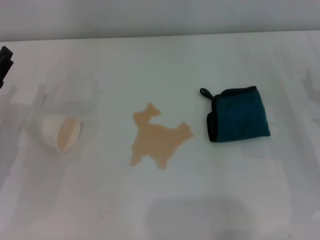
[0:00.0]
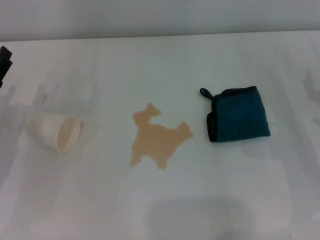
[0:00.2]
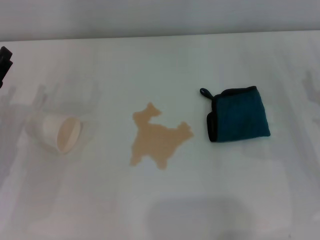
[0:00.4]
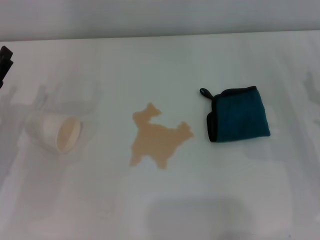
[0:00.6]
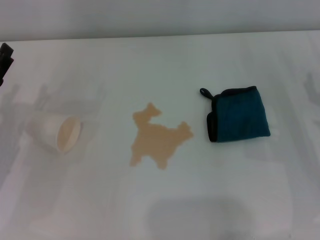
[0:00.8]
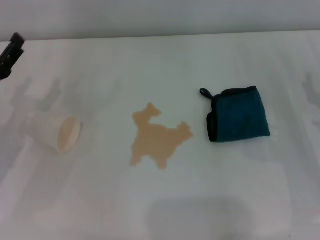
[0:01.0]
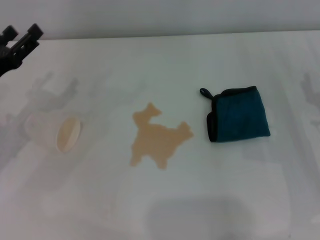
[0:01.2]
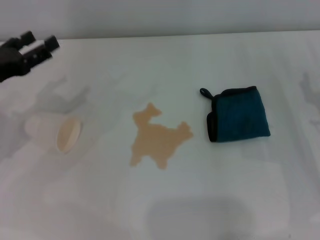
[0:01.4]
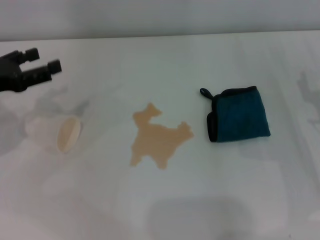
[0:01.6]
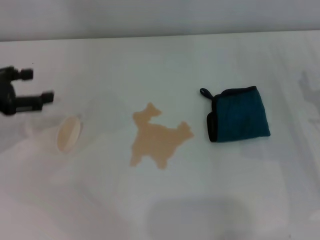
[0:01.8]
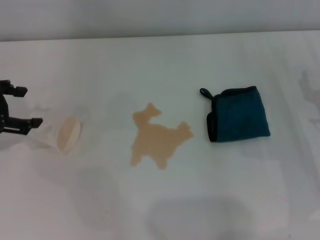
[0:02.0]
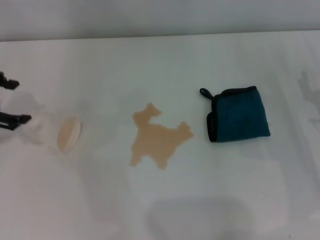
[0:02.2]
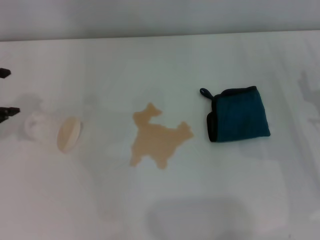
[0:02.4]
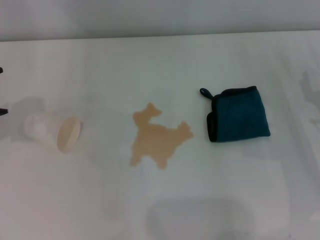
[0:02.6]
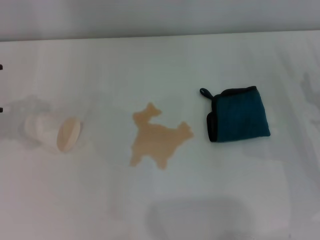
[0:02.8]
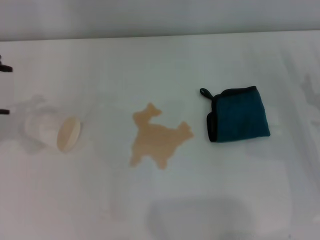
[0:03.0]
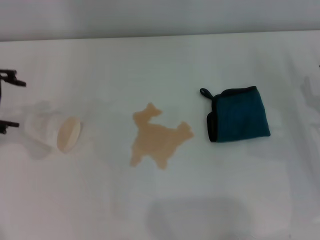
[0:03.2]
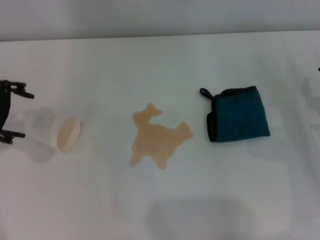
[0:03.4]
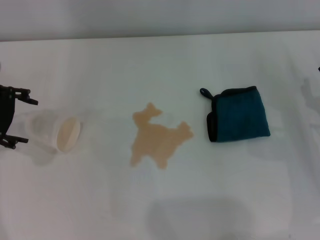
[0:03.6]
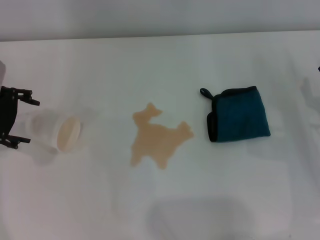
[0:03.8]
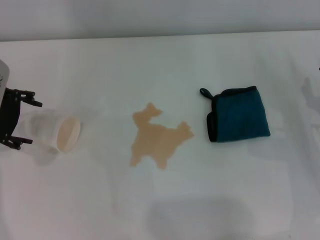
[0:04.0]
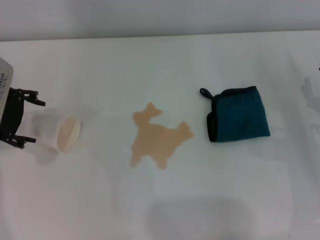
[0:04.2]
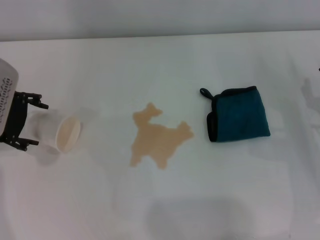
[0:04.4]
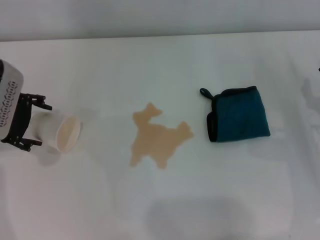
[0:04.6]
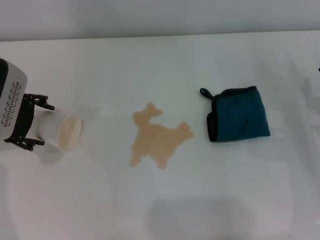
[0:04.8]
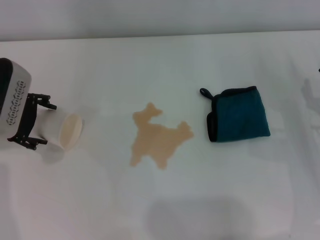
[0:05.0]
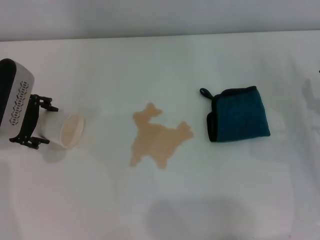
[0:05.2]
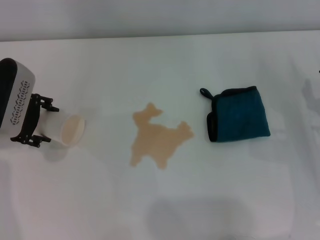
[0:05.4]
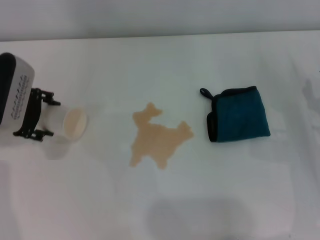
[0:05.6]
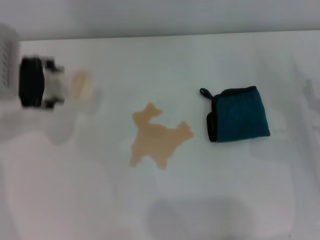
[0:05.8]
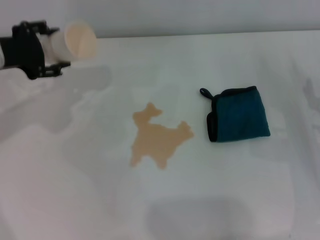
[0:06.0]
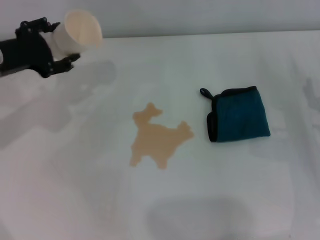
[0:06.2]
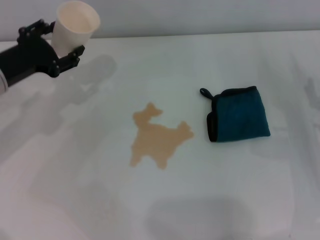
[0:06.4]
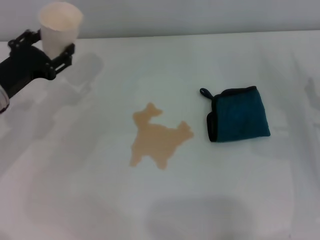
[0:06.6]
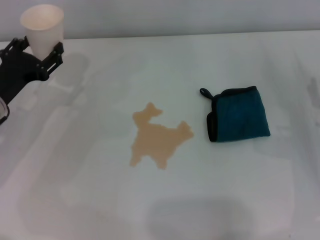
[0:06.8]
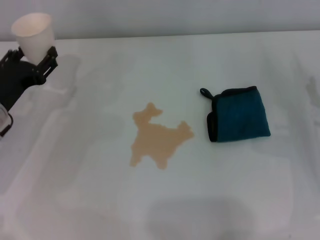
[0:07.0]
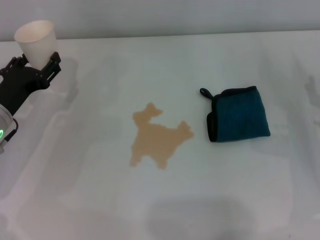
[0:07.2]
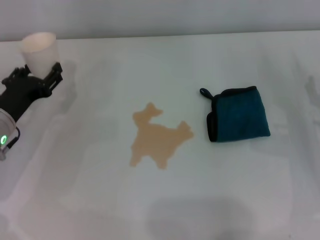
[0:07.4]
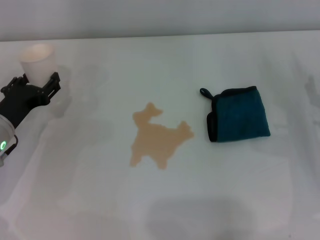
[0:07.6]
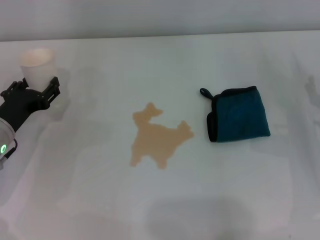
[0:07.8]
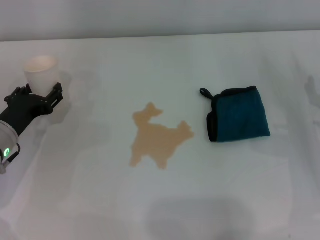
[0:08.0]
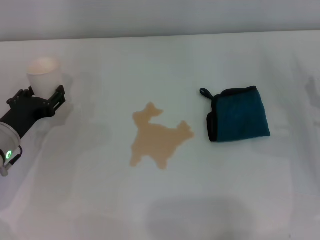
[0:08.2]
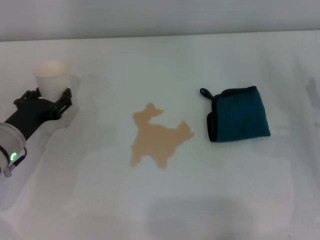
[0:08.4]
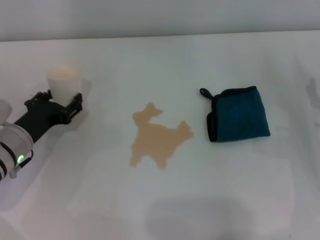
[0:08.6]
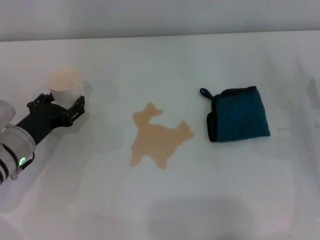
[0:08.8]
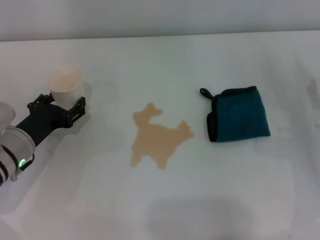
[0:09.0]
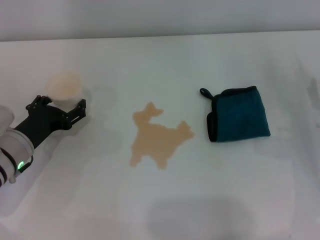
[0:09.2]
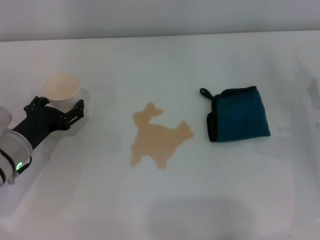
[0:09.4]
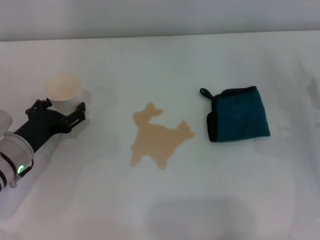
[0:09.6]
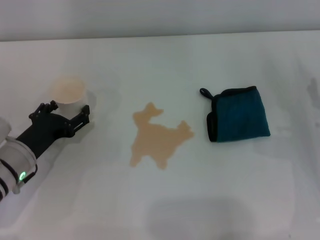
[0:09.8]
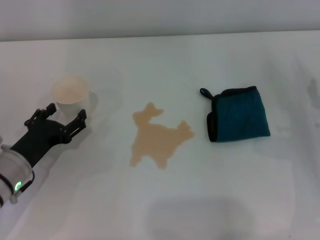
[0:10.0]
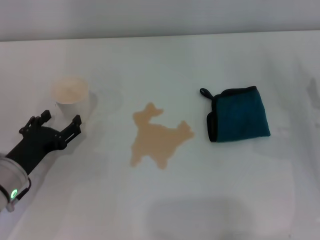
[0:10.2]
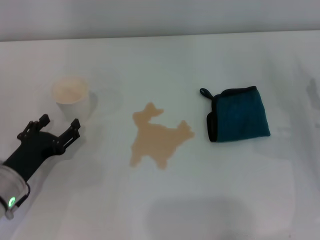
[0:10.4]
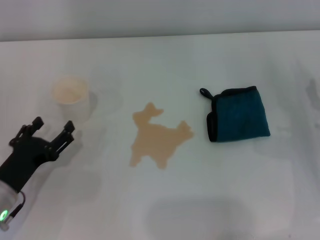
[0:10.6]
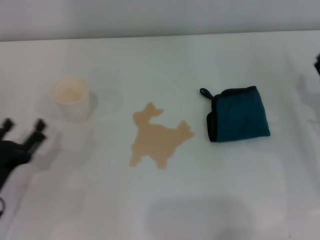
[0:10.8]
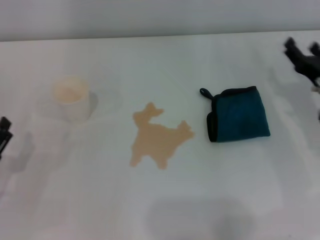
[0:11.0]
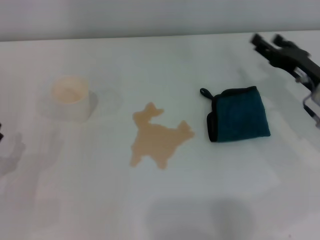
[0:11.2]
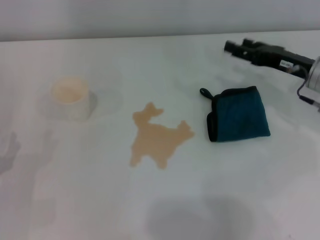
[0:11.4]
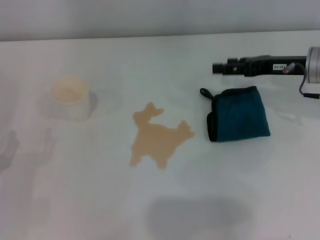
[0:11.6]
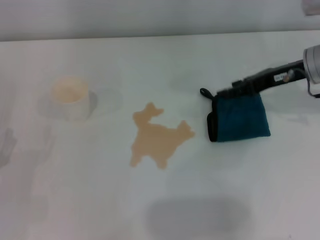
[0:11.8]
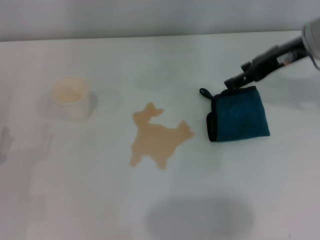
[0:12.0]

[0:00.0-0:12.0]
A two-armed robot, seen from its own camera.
Step, 0:00.0 to 0:05.2: Grasp the paper cup with the left gripper.
Step, 0:05.6 to 0:09.8: Stand the paper cup upright with the left gripper.
0:00.0 to 0:01.6: The left gripper goes roughly 10 cm upward.
0:01.6 to 0:03.0: The left gripper shifts approximately 10 cm upward.
0:03.0 to 0:04.4: The left gripper heads downward, covering about 10 cm.
0:04.4 to 0:06.0: The left gripper closes up.
0:06.0 to 0:07.6: The left gripper goes approximately 15 cm downward and backward.
0:07.6 to 0:09.0: The grippers make only small movements.
0:09.0 to 0:10.4: The left gripper moves backward, some 5 cm, and opens its fingers.
0:10.4 to 0:12.0: The right gripper moves upward, forward and to the left, approximately 25 cm; the left gripper shifts approximately 5 cm to the left.

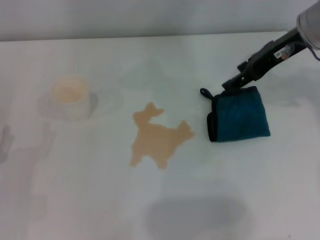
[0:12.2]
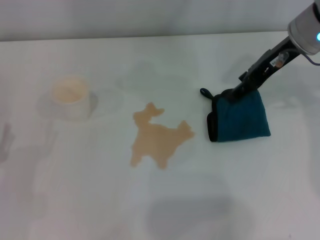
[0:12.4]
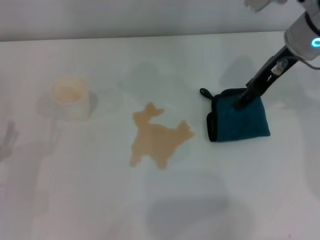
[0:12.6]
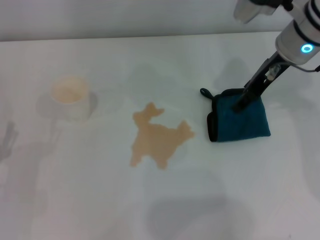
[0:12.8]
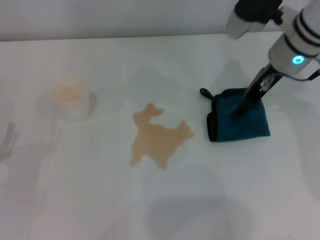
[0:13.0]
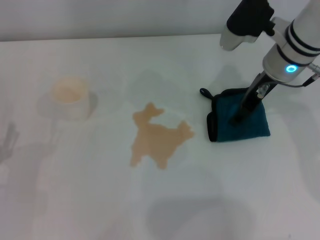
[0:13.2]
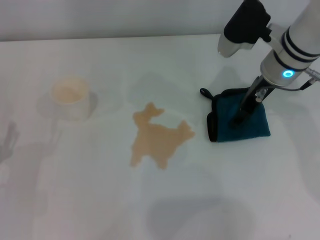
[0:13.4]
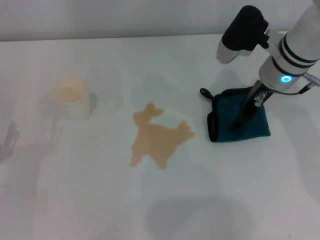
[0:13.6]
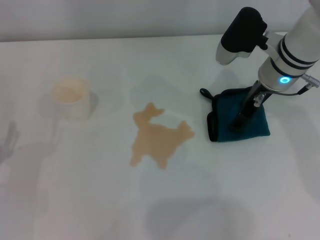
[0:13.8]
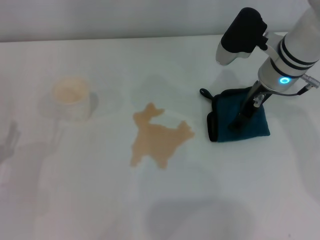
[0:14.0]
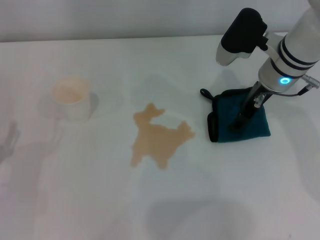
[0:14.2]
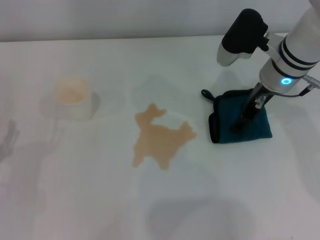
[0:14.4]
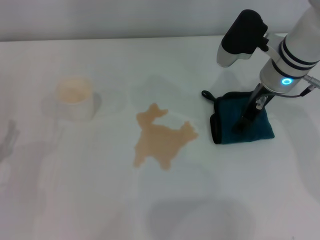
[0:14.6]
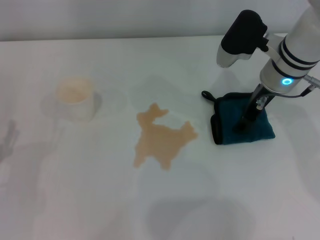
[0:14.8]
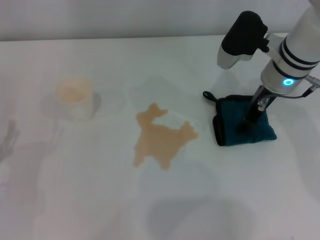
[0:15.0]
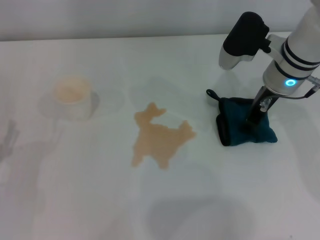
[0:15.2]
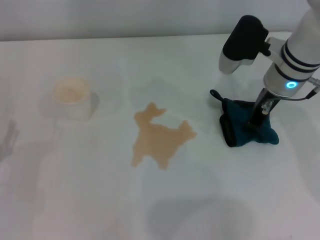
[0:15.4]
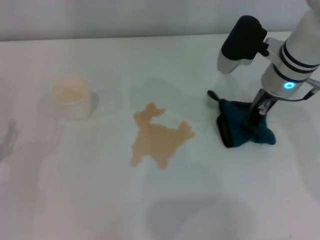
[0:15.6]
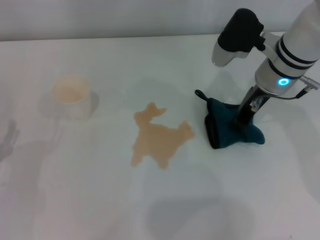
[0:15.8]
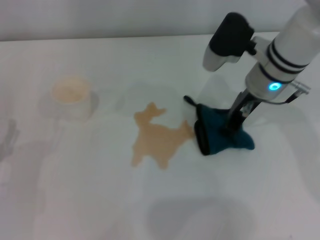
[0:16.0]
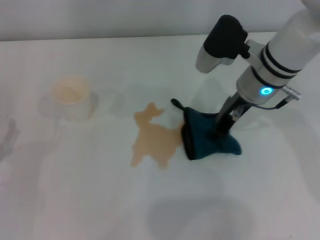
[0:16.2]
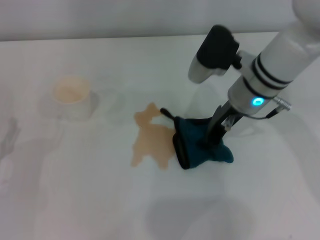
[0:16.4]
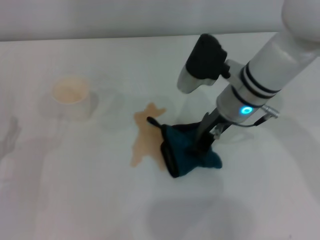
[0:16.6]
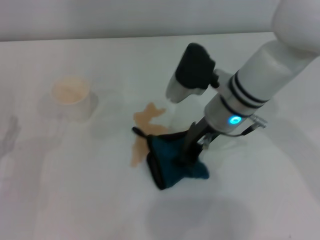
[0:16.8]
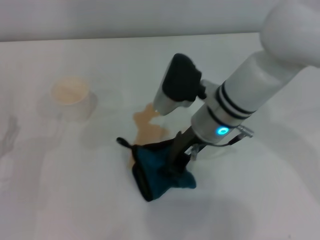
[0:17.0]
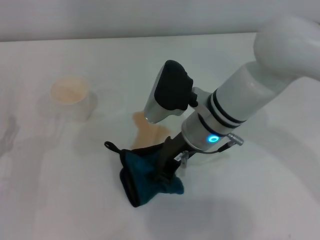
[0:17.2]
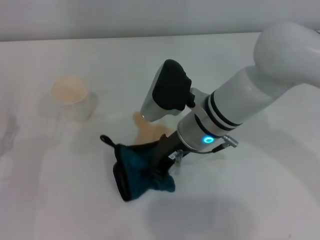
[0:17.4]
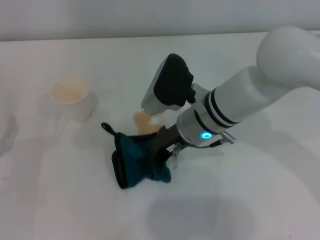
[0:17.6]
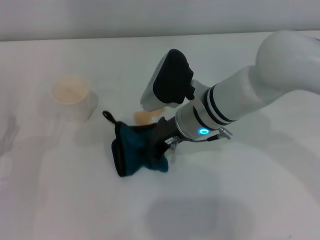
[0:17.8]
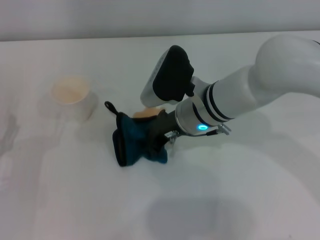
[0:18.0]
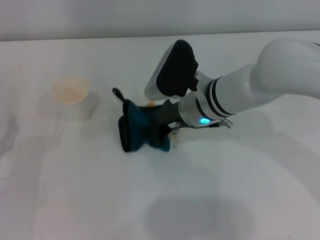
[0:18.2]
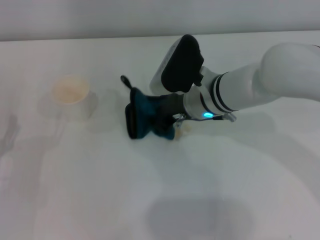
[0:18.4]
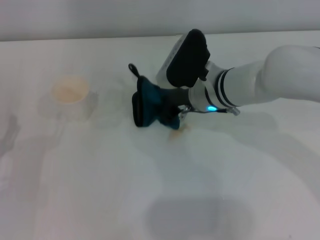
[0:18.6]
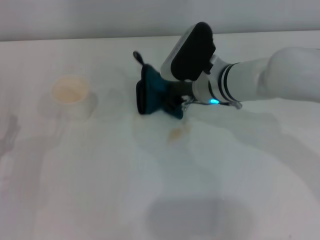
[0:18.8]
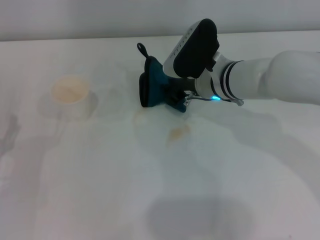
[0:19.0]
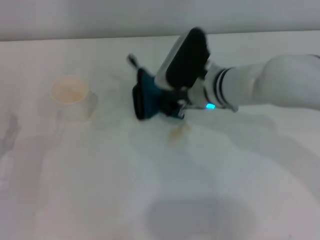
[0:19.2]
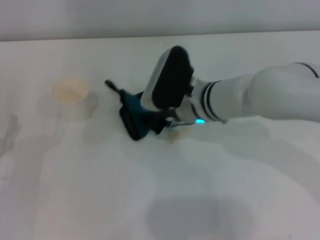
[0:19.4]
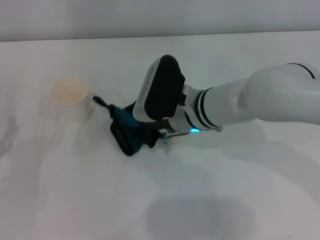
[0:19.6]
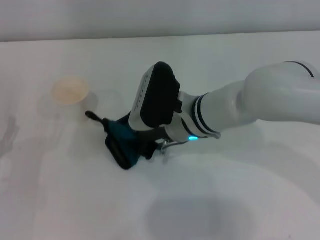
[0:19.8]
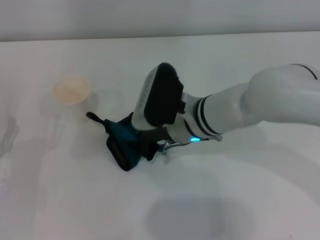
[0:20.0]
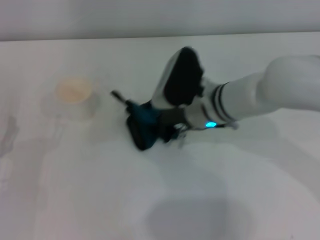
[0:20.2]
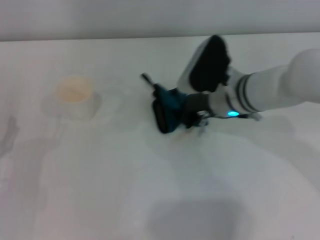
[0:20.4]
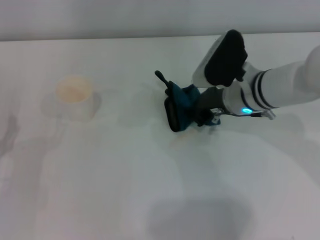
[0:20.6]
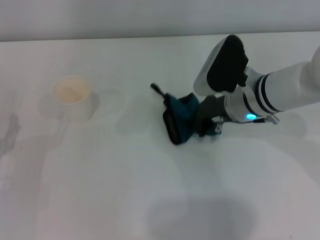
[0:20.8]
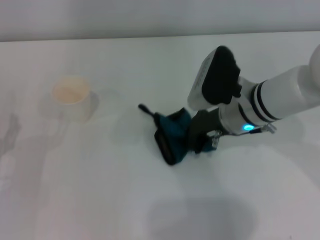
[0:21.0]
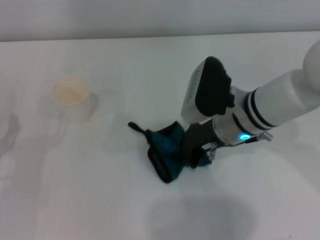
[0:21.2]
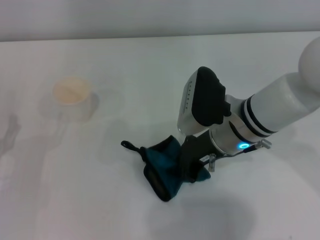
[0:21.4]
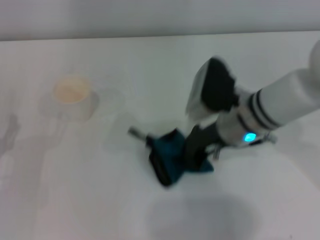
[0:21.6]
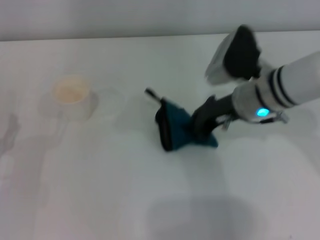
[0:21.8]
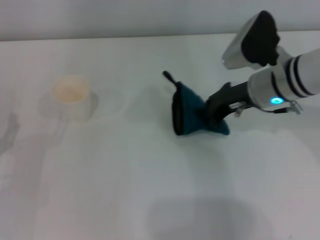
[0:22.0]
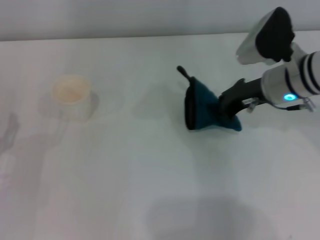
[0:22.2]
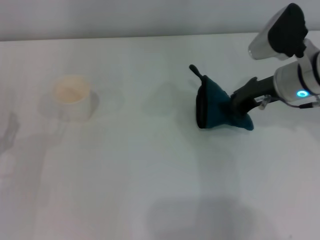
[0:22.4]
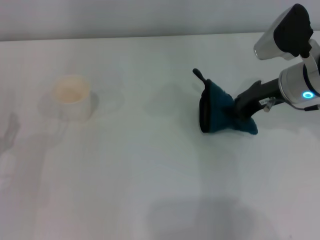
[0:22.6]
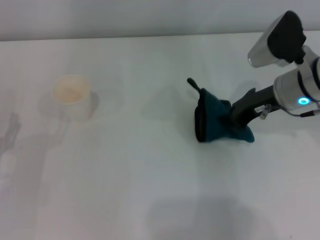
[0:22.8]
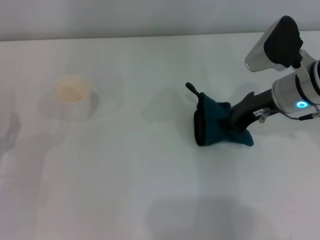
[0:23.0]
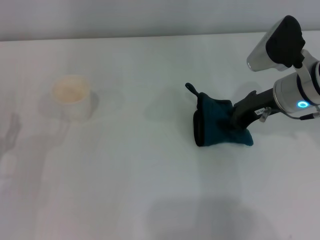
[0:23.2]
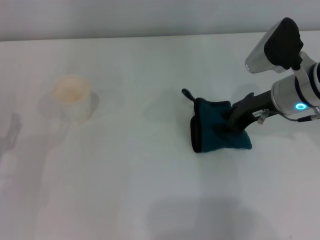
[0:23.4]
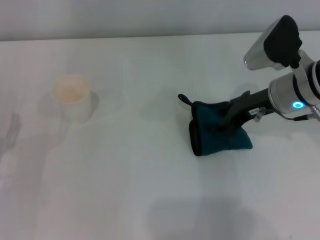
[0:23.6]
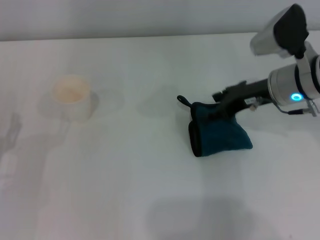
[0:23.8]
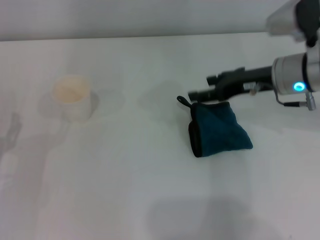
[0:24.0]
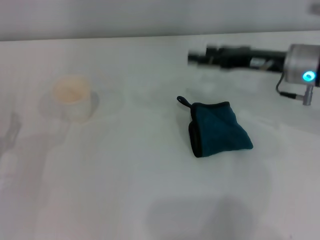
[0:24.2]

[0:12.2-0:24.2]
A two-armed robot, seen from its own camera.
Step, 0:12.2 to 0:15.2: Grasp the rag with the right gripper.
Step, 0:15.6 to 0:22.8: Wipe the stains off the table with the right gripper.
Step, 0:23.0 to 0:23.6: Place the rag on the table with the right gripper.
0:12.2 to 0:13.8: The right gripper heads downward, covering about 10 cm.
0:13.8 to 0:15.2: The right gripper closes.
0:15.2 to 0:16.6: The right gripper moves to the left, some 5 cm, and closes up.
0:16.6 to 0:18.2: The right gripper shifts by approximately 5 cm.
0:18.2 to 0:19.8: The grippers stay close to where they were, moving slightly.
0:19.8 to 0:21.2: The right gripper travels to the right by approximately 5 cm.
0:21.2 to 0:22.6: The right gripper travels to the right by approximately 10 cm.
0:22.6 to 0:24.2: The right gripper opens.
